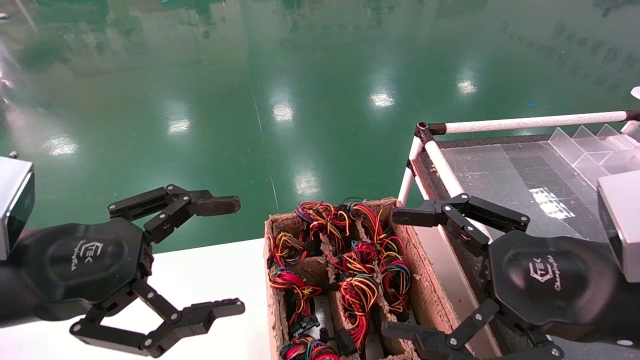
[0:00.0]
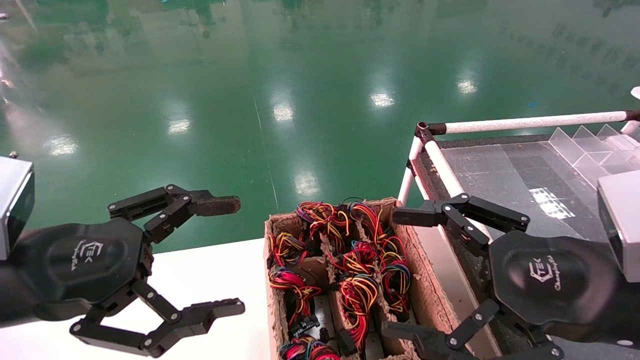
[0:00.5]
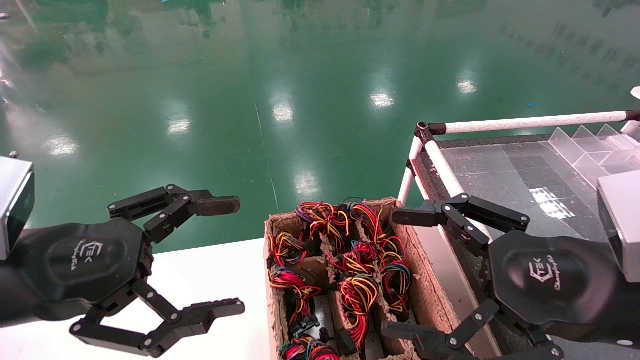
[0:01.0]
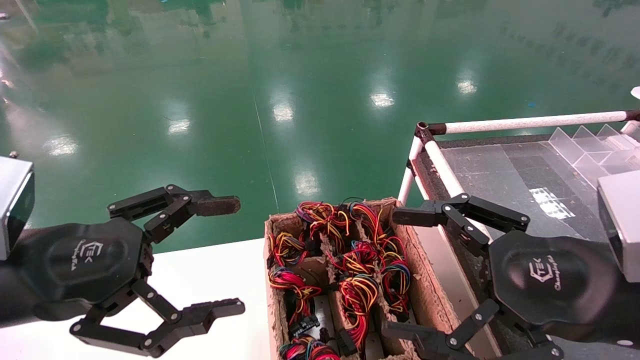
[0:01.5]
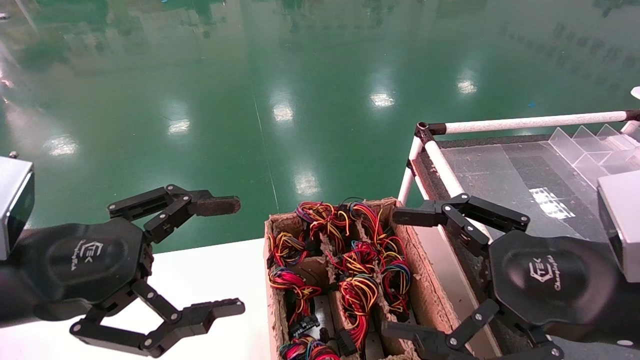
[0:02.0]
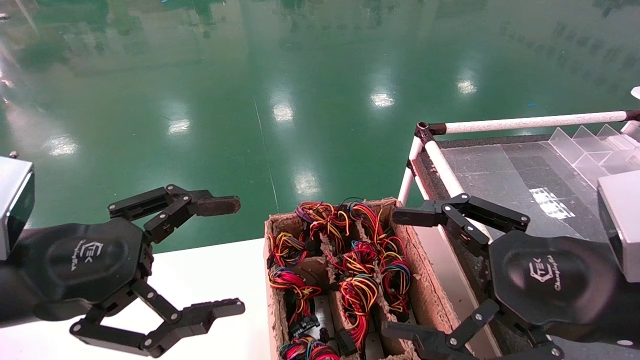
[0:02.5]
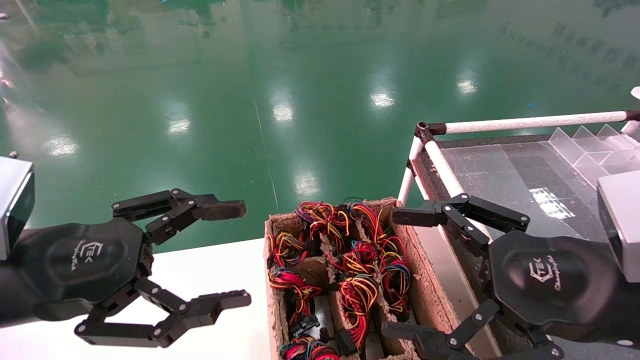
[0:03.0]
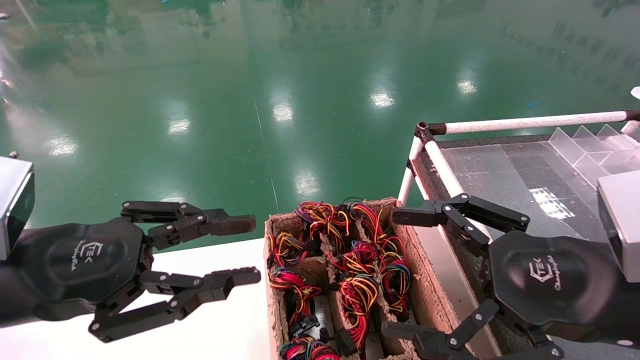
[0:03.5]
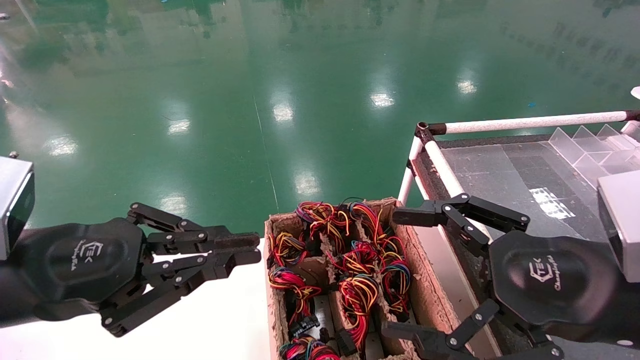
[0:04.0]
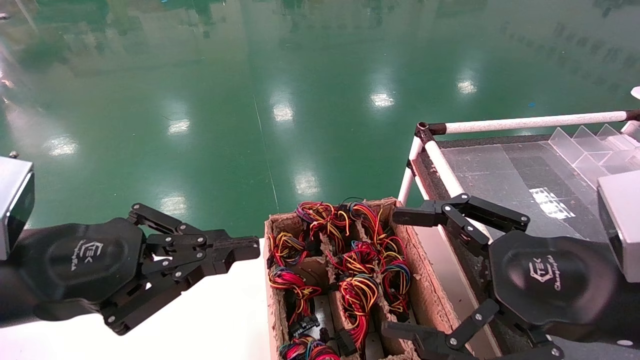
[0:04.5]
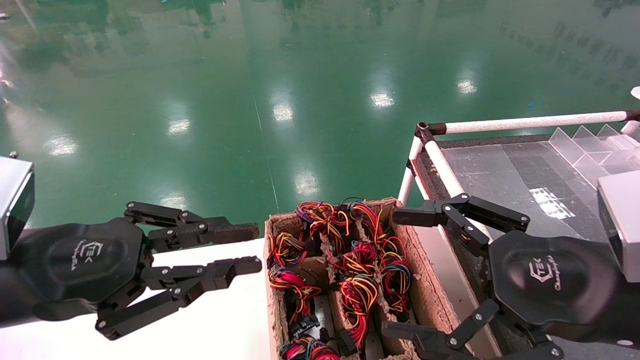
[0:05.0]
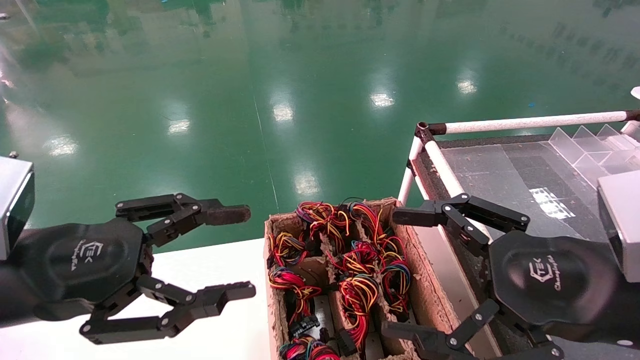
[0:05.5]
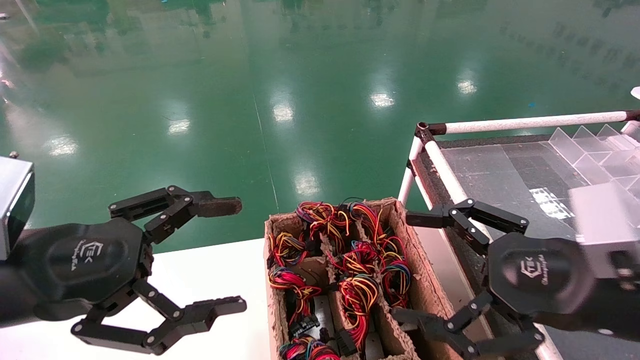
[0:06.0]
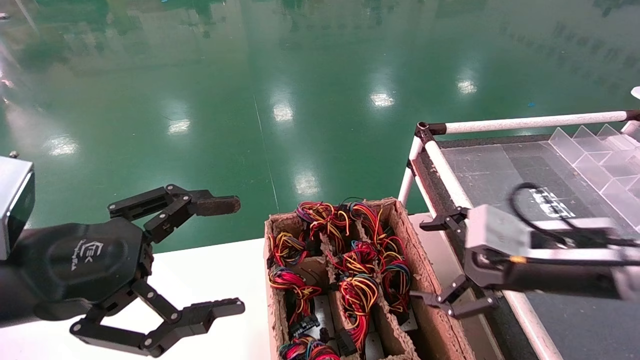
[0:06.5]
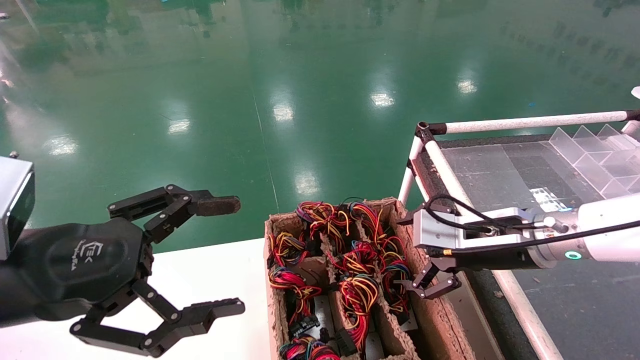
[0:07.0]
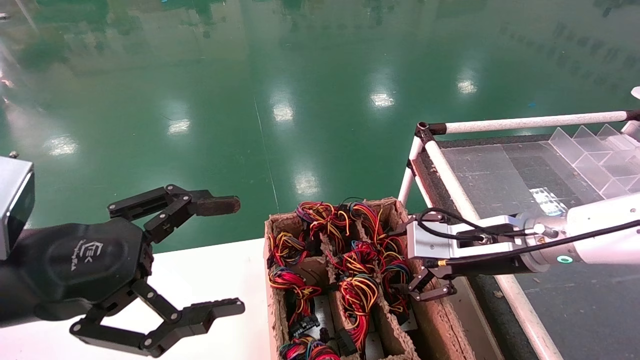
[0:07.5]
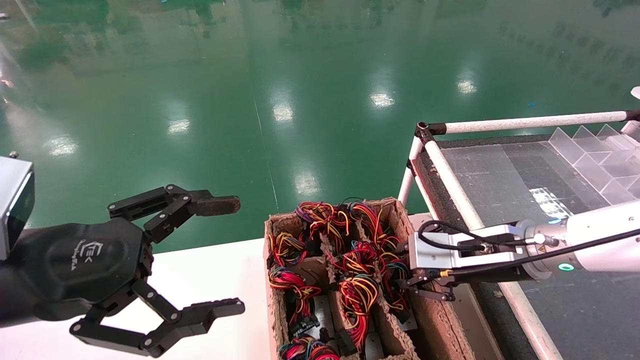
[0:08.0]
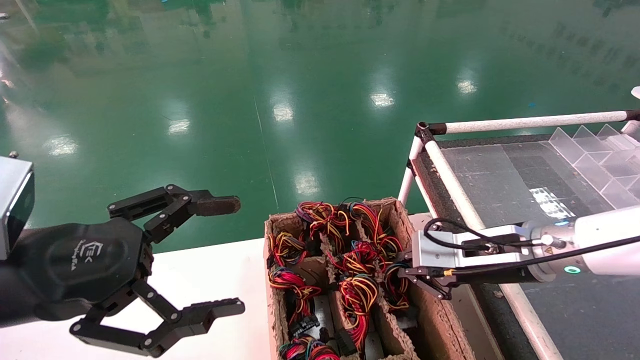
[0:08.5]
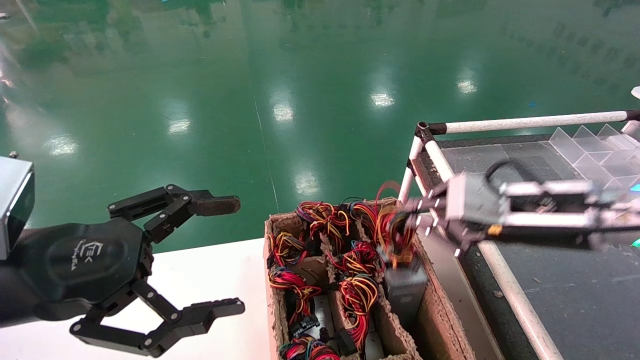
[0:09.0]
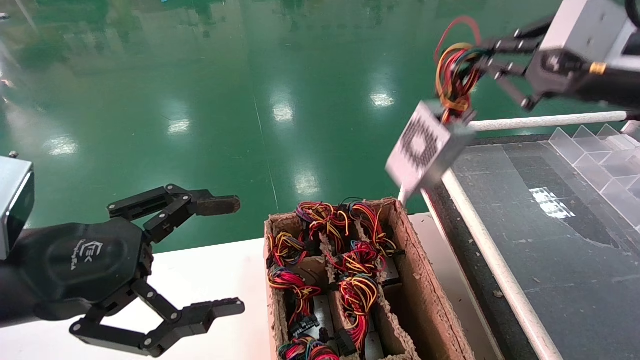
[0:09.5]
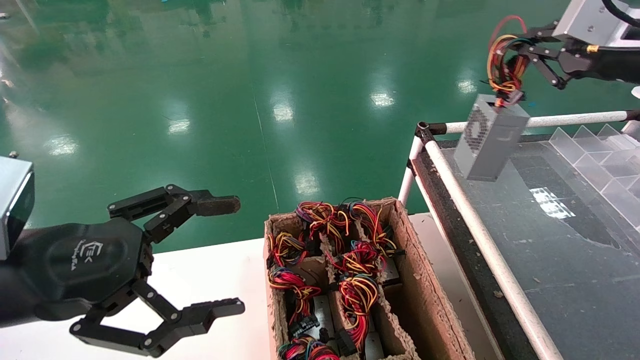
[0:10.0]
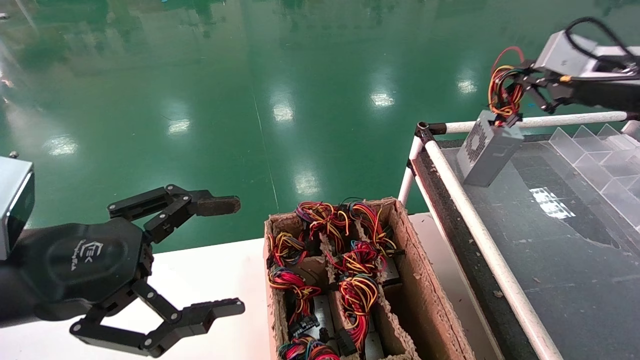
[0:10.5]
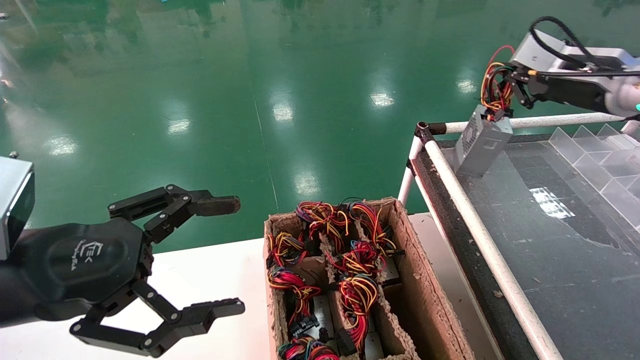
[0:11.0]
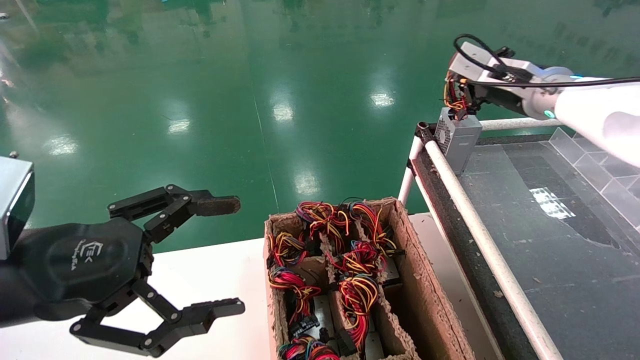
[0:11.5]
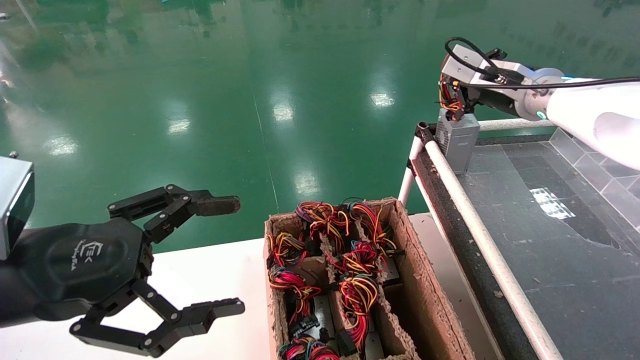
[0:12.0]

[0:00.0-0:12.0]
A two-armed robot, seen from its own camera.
Step, 0:04.5 to 0:08.5: Grab and lift the power supply from the large box.
0:00.0 to 0:02.0: The two grippers keep their place.
0:02.0 to 0:04.0: The left gripper closes.
0:04.0 to 0:06.0: The left gripper opens.
0:06.0 to 0:08.0: The right gripper goes some 15 cm forward, and closes.
0:08.0 to 0:10.0: The right gripper shifts some 25 cm upward and to the right, and closes.
0:10.0 to 0:12.0: The right gripper travels forward and to the left by roughly 15 cm.

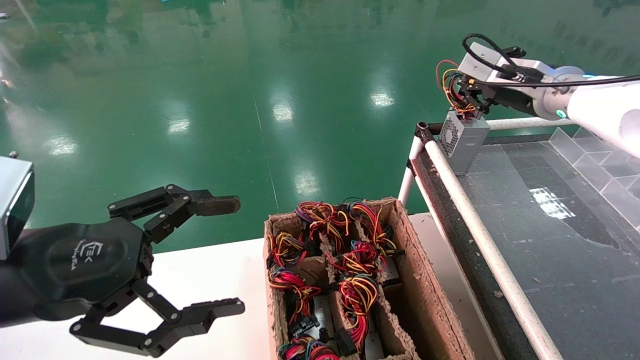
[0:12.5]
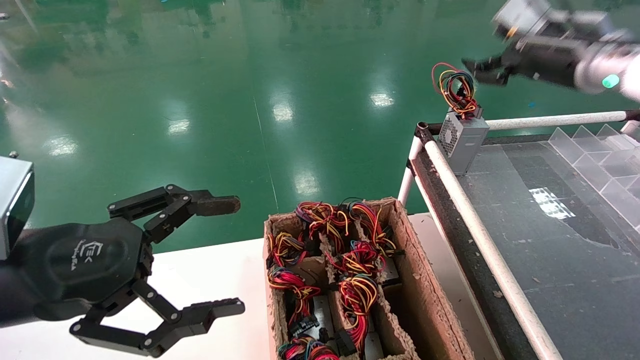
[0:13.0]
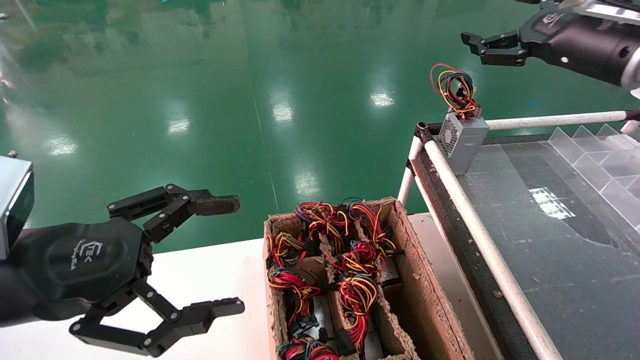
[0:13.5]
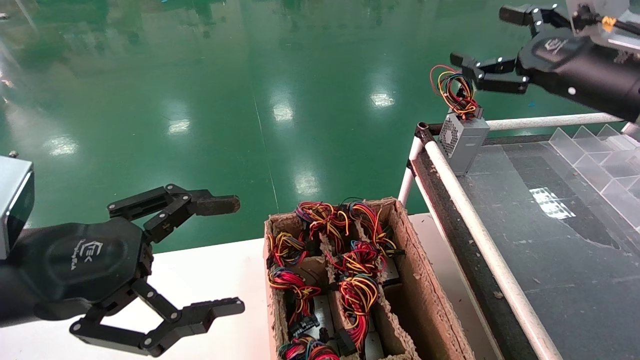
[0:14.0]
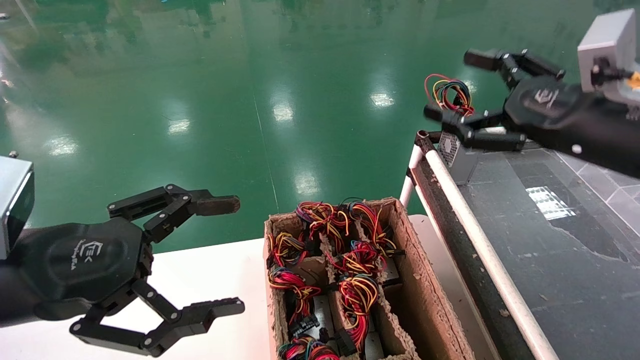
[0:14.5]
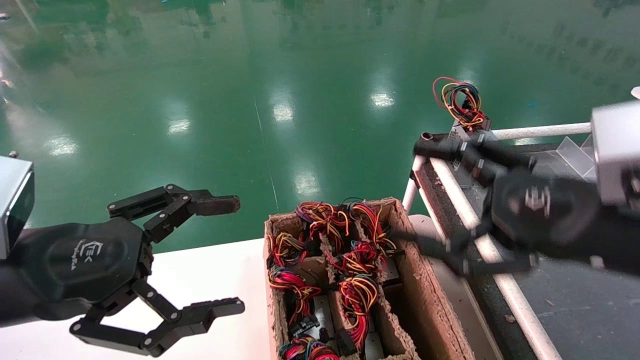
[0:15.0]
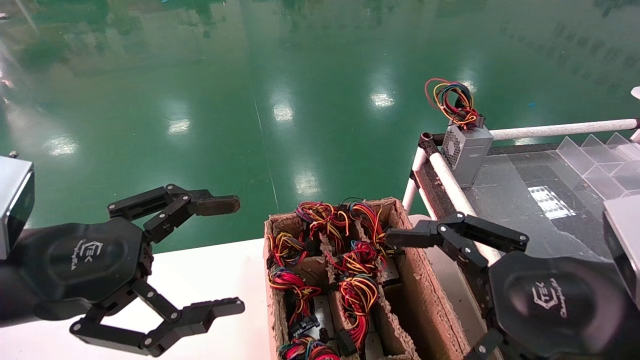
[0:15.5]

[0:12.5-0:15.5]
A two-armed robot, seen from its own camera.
0:12.5 to 0:14.0: The right gripper is displaced backward by about 10 cm, and opens its fingers.
0:14.0 to 0:15.5: The right gripper travels backward, downward and to the left by about 25 cm.

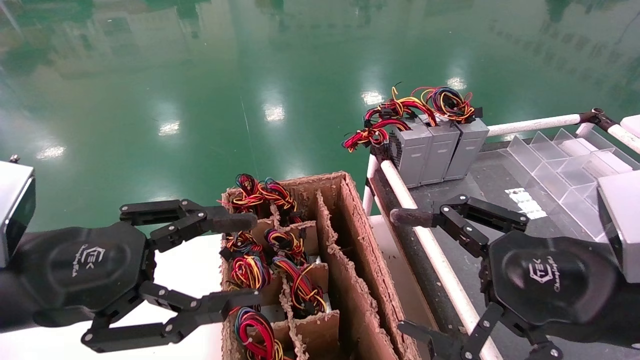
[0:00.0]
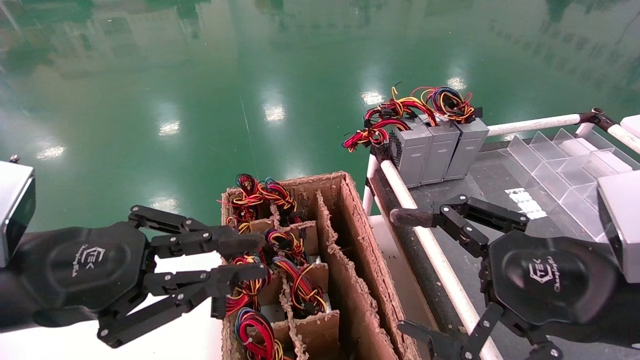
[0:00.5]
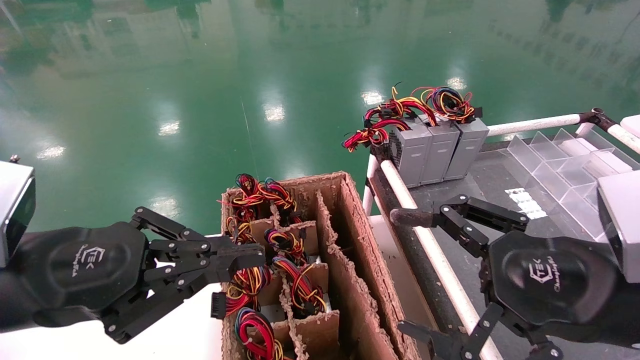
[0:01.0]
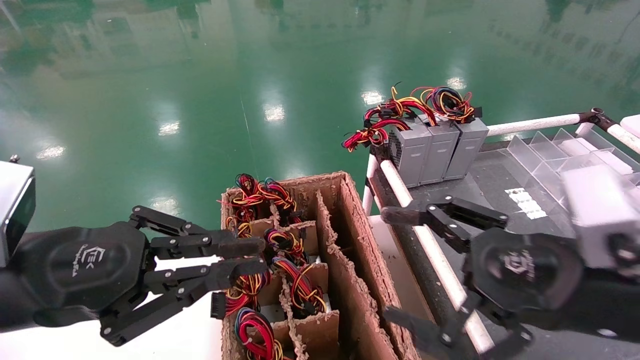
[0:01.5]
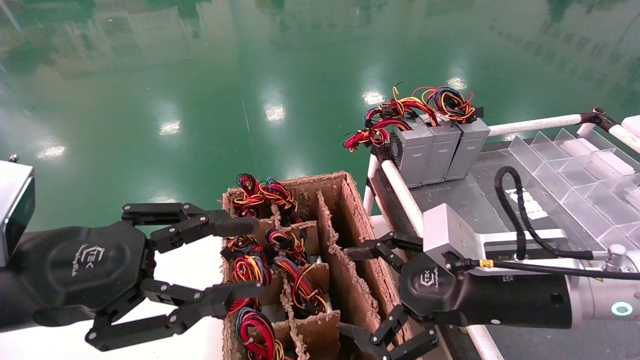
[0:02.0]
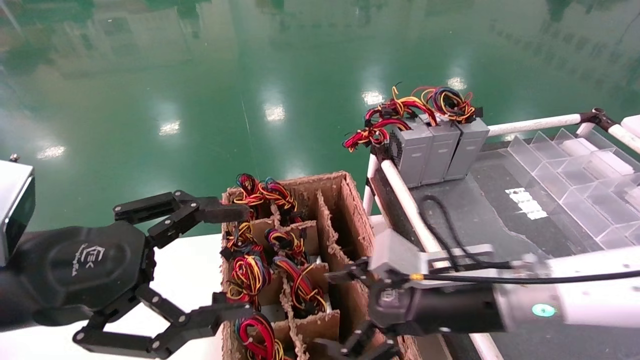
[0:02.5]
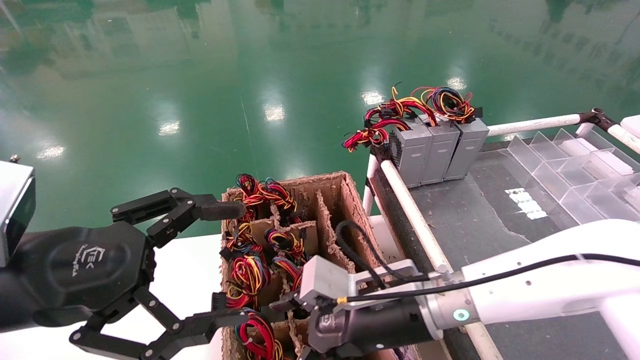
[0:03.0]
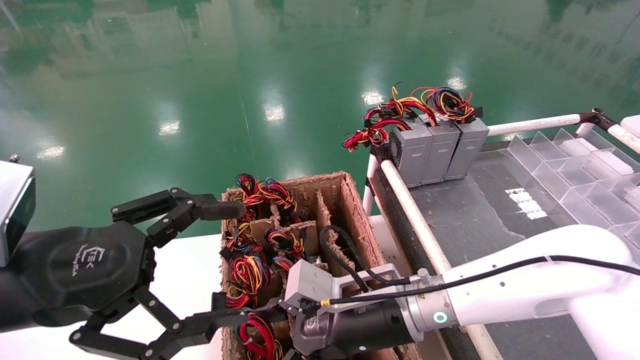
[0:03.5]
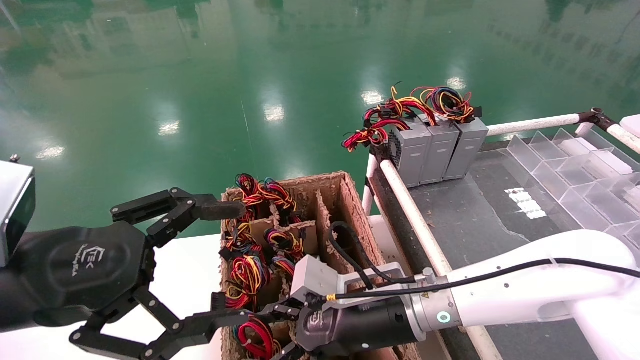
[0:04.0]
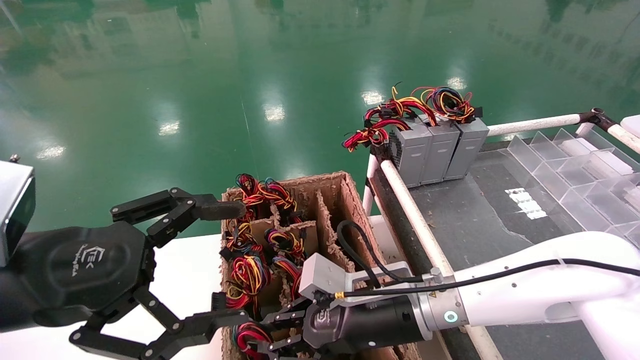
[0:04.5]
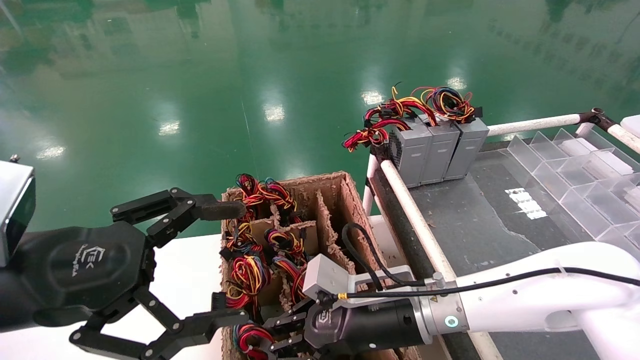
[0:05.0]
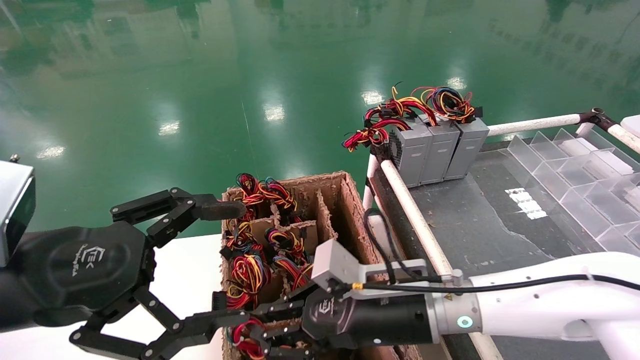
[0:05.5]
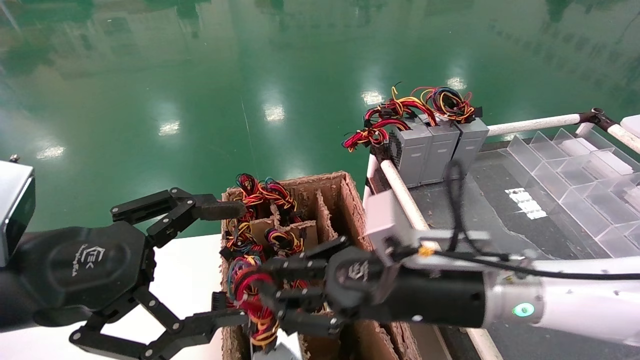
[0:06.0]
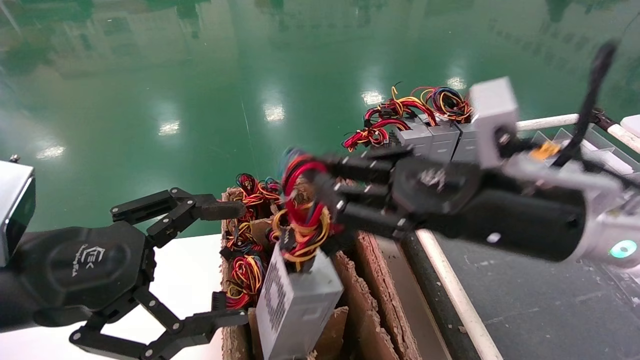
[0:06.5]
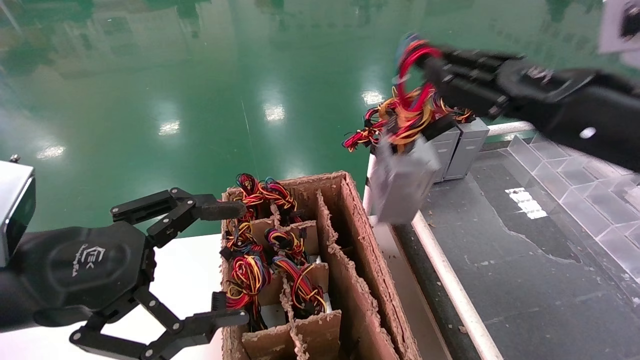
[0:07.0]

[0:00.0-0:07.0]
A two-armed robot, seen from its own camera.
Step, 0:01.0 to 0:04.5: Grab and lift the power supply from the large box.
0:00.0 to 0:02.0: The right gripper heads forward, covering about 5 cm.
0:02.0 to 0:03.5: The left gripper opens; the right gripper is displaced to the left, downward and forward by roughly 15 cm.
0:03.5 to 0:05.0: The right gripper closes up.
0:05.0 to 0:07.0: The right gripper shifts approximately 30 cm upward and to the right.
